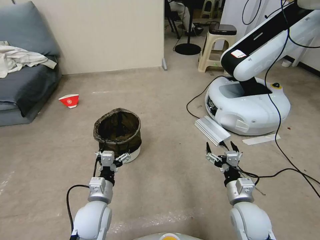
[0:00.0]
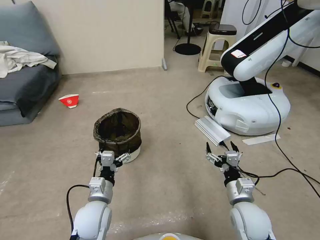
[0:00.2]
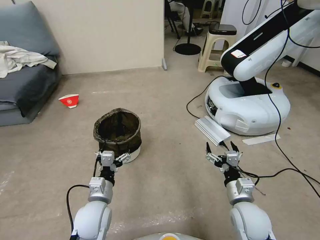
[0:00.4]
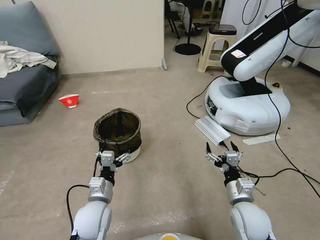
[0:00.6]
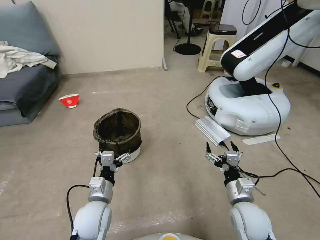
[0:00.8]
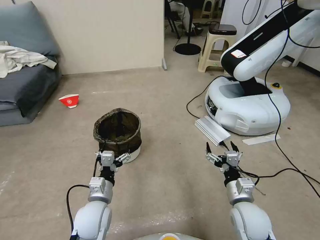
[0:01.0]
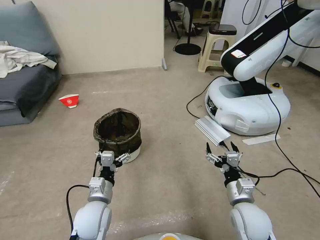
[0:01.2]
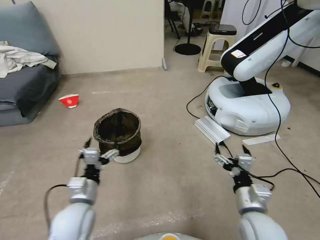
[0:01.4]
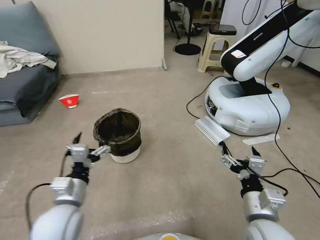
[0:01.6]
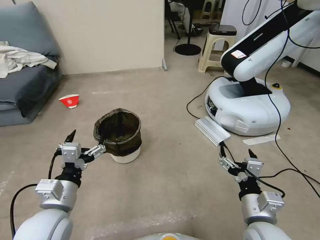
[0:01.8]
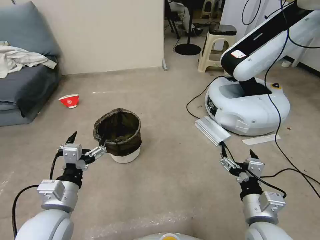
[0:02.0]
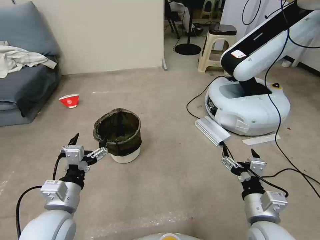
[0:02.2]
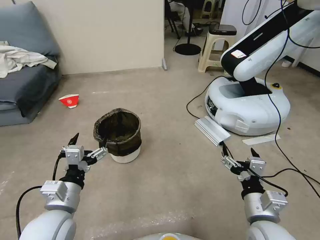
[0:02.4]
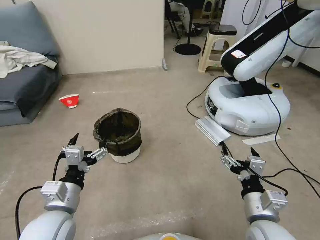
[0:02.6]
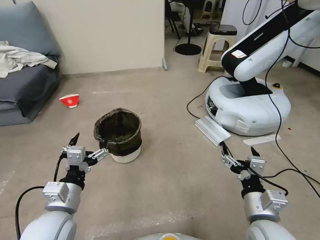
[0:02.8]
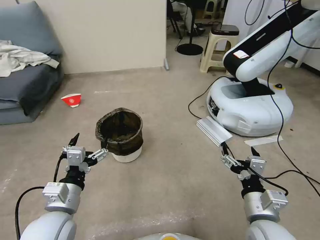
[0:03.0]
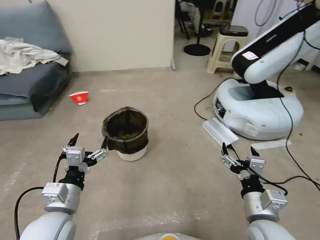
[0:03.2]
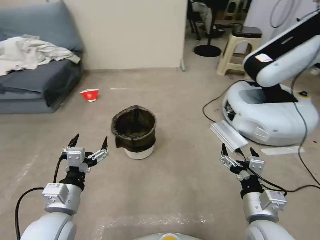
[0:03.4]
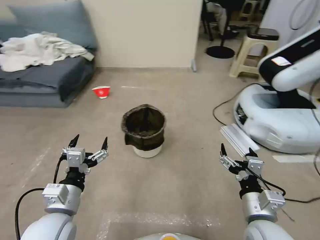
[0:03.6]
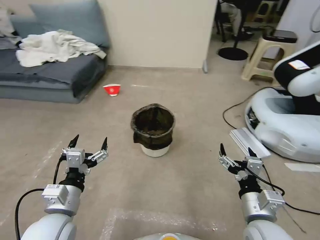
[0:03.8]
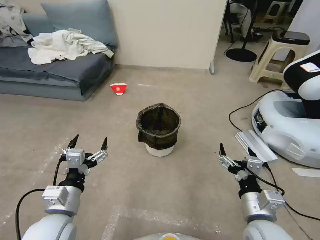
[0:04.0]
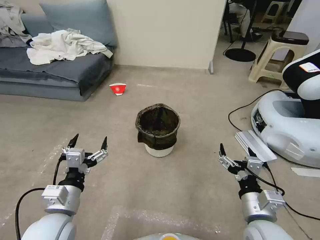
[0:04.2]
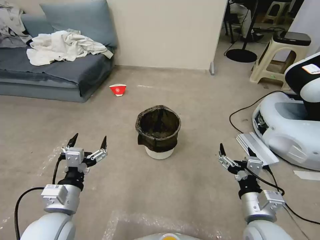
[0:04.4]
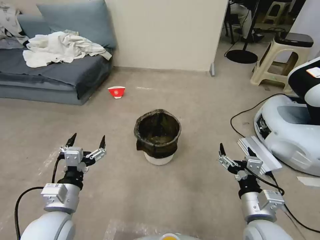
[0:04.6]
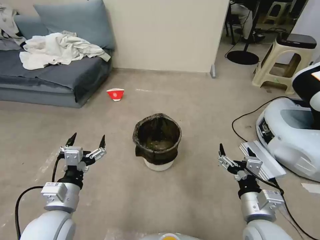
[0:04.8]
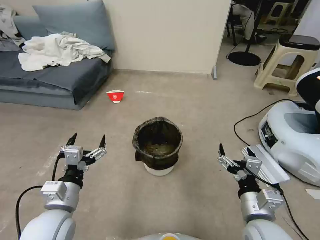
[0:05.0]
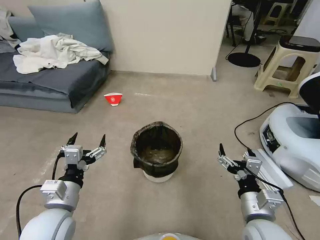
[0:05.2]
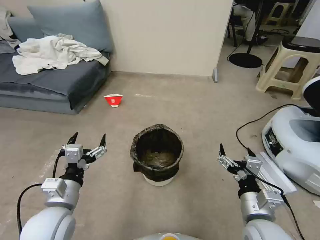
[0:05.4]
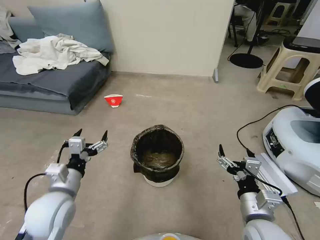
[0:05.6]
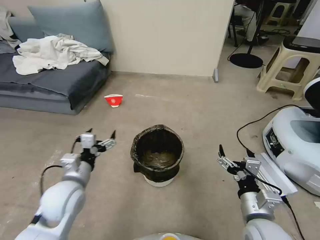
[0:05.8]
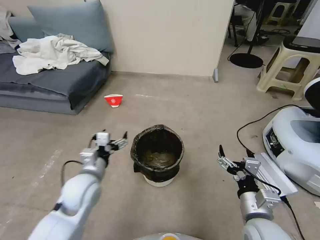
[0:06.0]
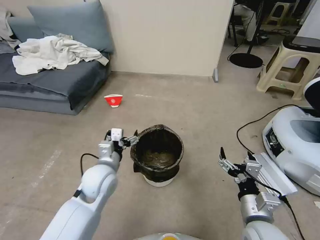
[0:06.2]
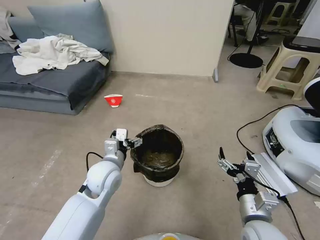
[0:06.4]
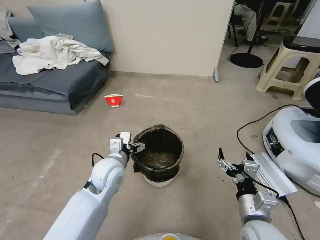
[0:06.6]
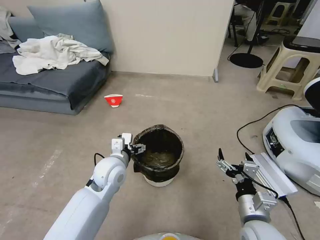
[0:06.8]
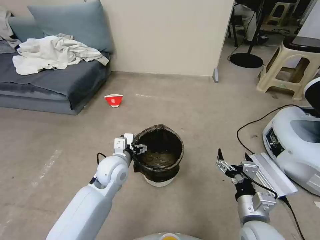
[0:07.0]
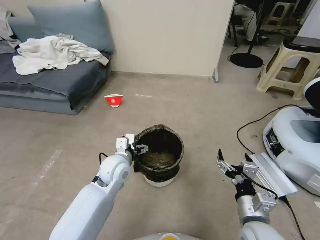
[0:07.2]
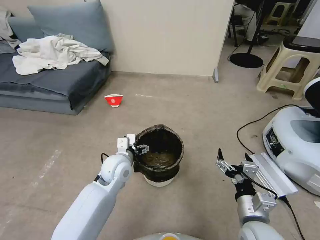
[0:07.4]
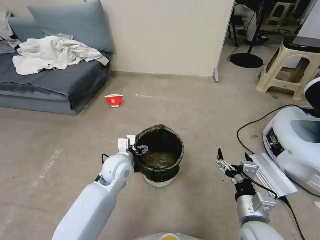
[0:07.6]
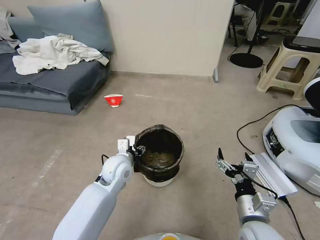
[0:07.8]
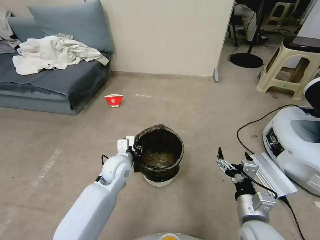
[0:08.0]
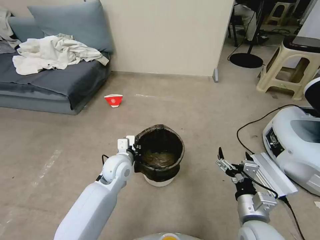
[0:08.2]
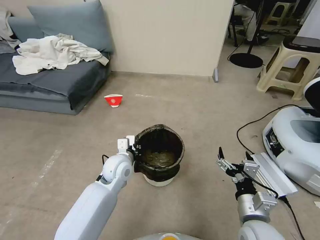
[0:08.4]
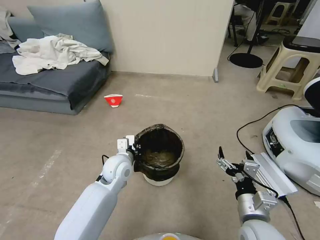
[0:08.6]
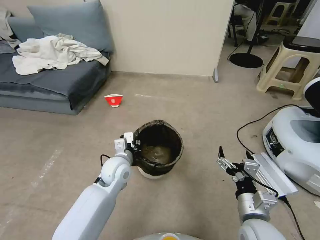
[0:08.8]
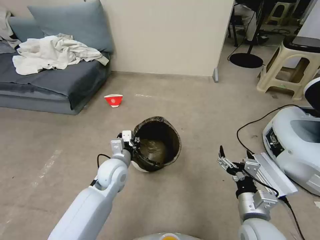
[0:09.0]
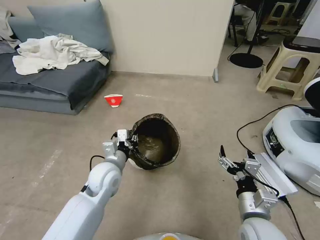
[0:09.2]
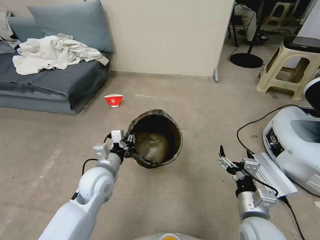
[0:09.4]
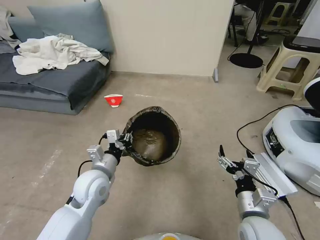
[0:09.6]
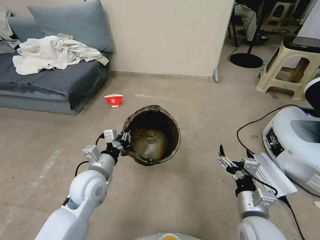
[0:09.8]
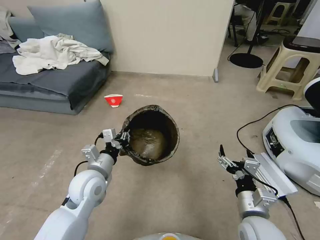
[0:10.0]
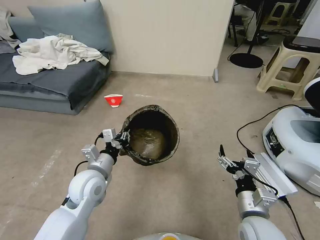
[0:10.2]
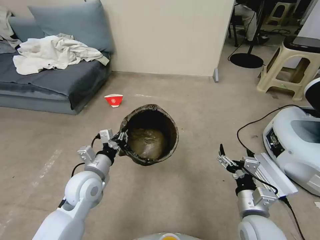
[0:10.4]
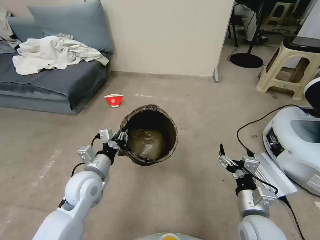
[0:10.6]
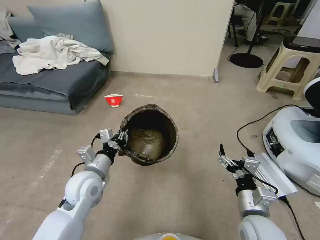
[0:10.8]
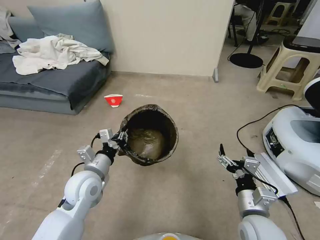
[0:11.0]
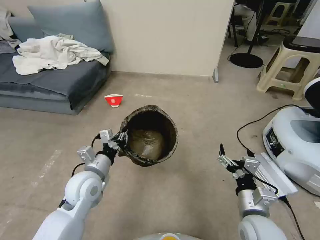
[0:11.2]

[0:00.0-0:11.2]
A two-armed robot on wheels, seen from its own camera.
Task of the whole recording: Pick up the trash can from the floor.
0:04.8 to 0:06.4: The left gripper shifts about 15 cm forward and to the right.
0:06.4 to 0:08.0: The left gripper changes place by some 5 cm, and closes up.
0:08.0 to 0:09.6: The left gripper travels backward and to the left by approximately 10 cm.
0:09.6 to 0:11.2: The grippers move only a little.

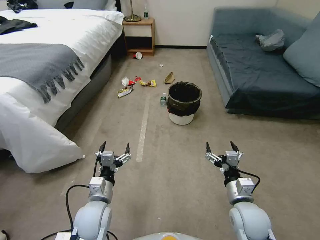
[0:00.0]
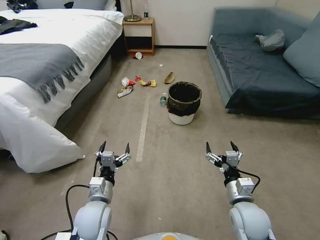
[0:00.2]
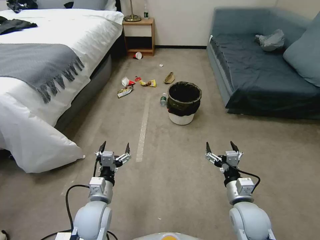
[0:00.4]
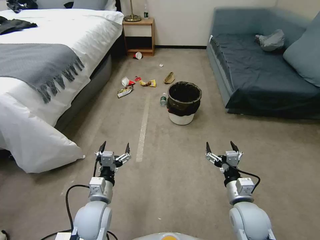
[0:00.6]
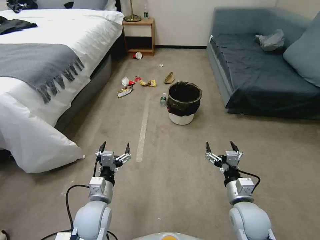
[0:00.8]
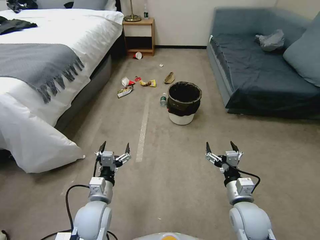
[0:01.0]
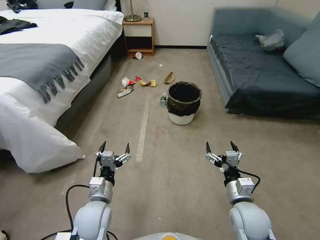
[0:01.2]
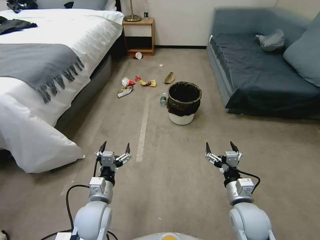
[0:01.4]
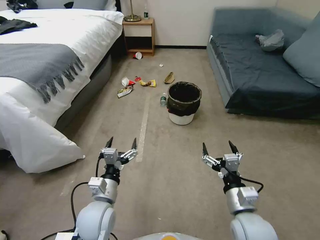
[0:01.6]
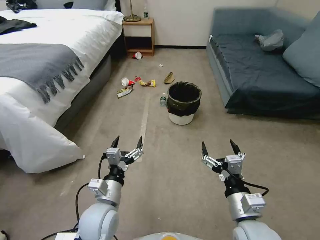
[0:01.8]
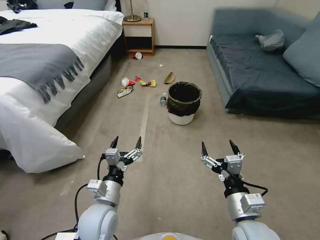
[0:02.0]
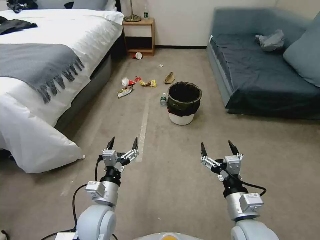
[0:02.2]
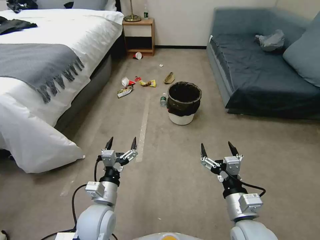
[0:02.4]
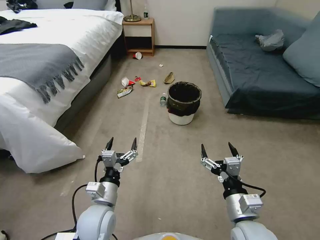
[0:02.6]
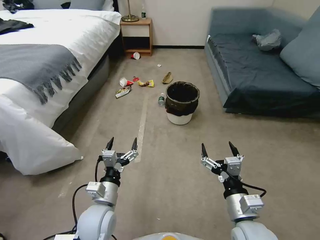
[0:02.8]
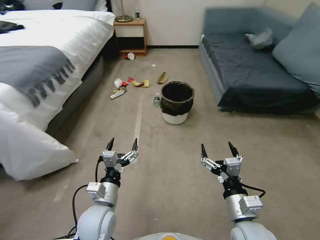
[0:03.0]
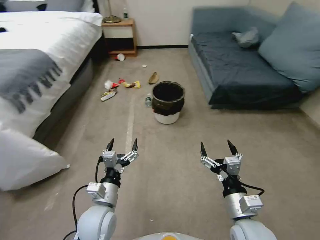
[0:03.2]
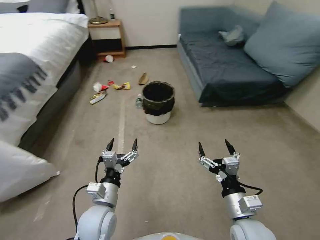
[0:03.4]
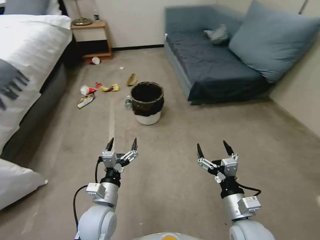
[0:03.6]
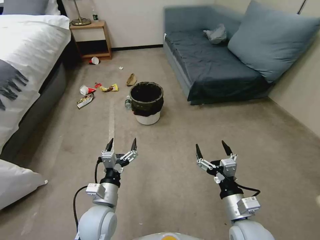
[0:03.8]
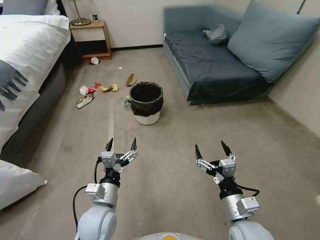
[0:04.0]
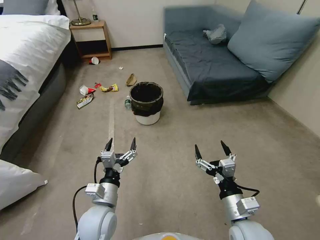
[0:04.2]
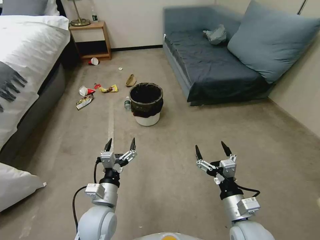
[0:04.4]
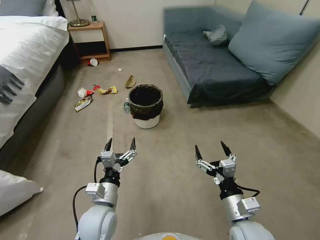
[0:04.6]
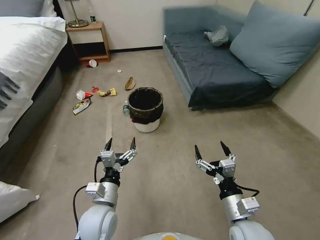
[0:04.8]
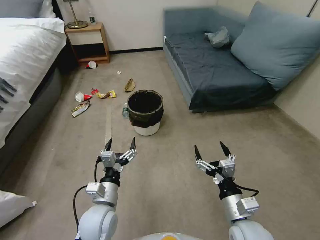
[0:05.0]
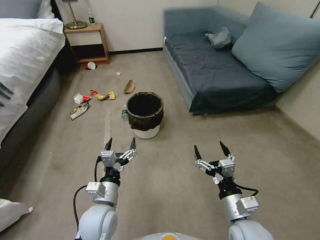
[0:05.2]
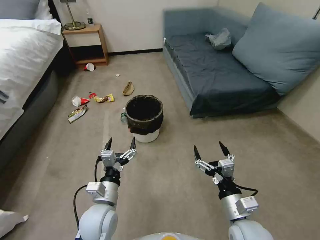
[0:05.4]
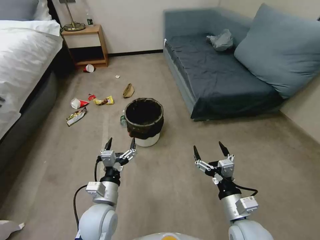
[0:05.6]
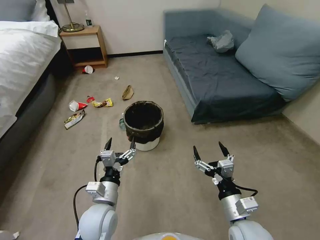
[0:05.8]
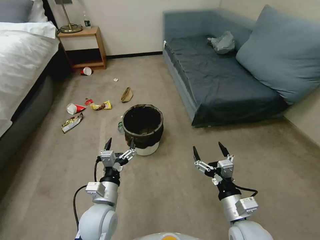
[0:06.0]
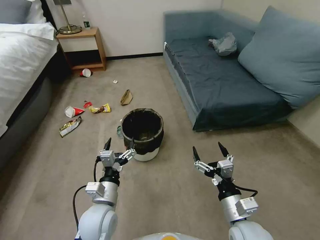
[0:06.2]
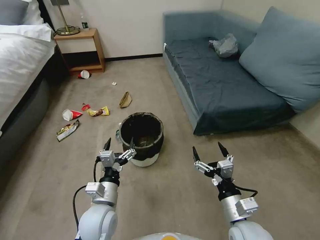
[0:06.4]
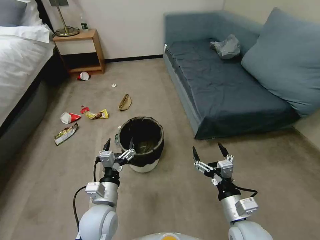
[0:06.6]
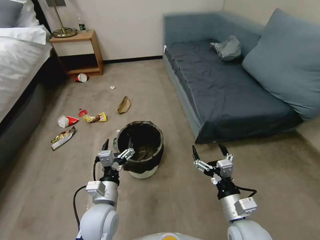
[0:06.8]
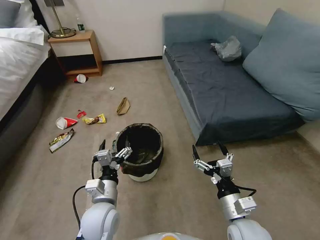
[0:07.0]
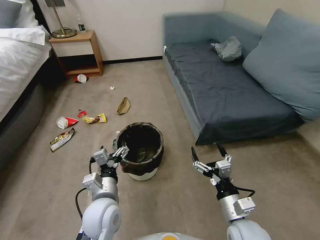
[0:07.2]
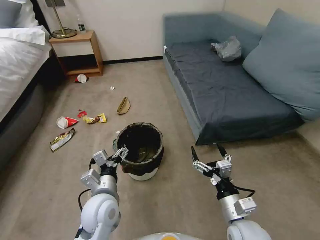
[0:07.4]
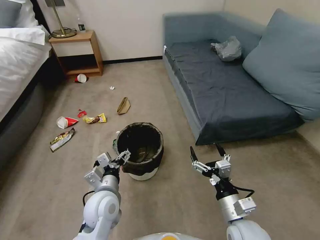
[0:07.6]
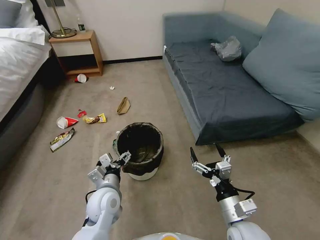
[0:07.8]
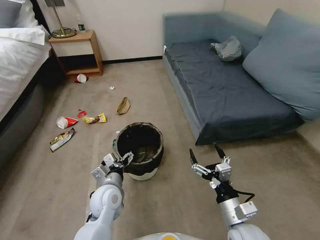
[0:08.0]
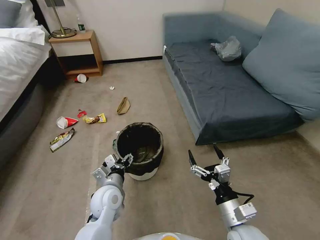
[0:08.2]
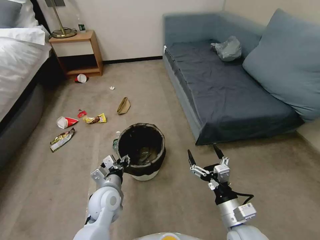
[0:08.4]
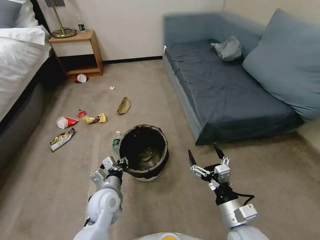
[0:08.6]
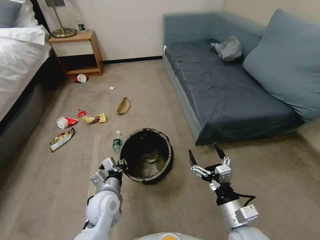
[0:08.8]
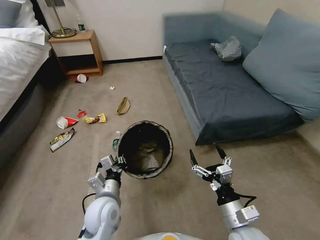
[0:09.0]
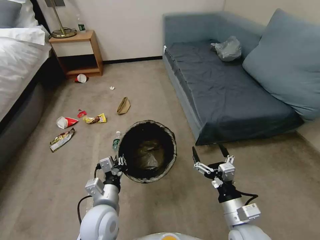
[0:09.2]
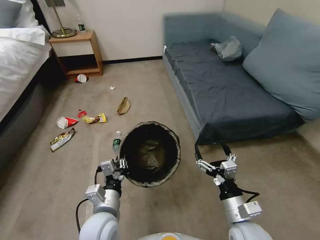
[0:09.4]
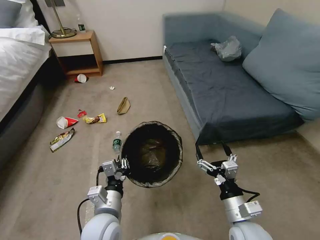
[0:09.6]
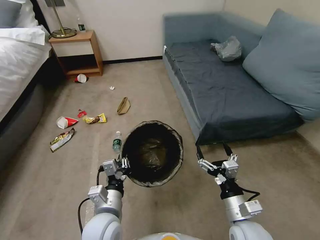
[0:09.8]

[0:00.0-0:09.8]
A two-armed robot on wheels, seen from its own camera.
Task of the whole recording: Pick up the trash can from the floor.
0:01.4 to 0:02.8: The right gripper is displaced backward by some 5 cm.
0:07.0 to 0:08.4: The left gripper moves forward, roughly 5 cm, and closes up.
0:08.4 to 0:09.8: The left gripper shifts approximately 10 cm backward, and closes.

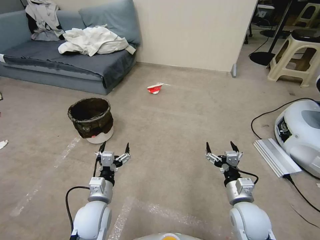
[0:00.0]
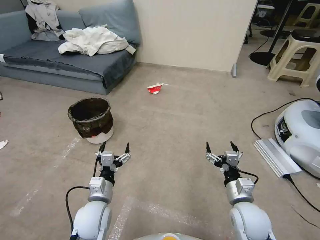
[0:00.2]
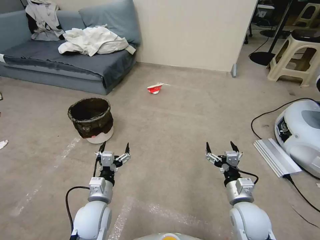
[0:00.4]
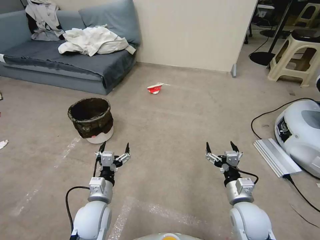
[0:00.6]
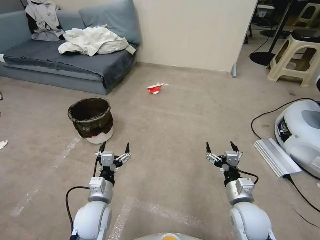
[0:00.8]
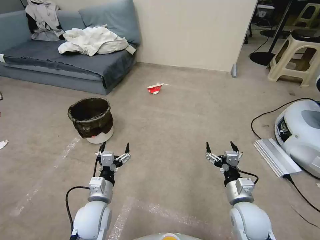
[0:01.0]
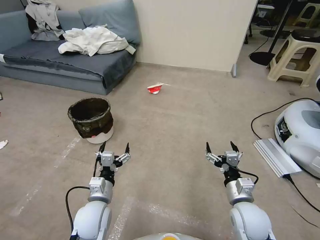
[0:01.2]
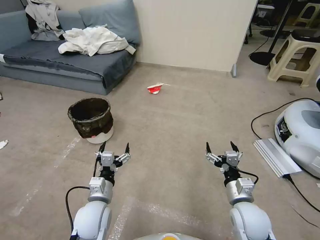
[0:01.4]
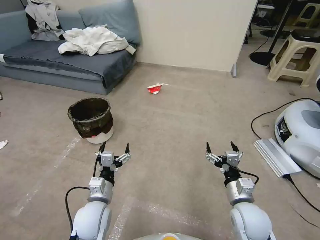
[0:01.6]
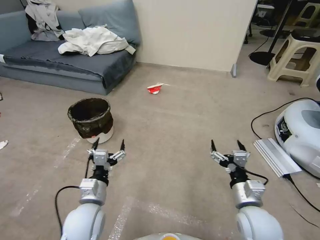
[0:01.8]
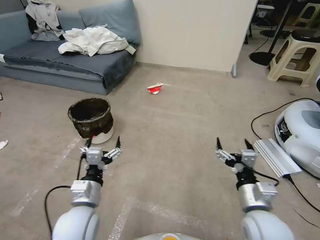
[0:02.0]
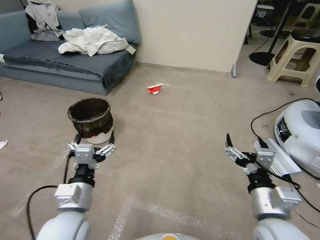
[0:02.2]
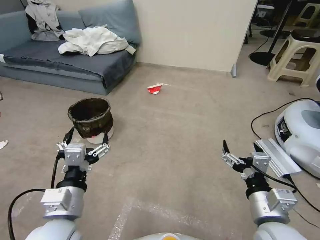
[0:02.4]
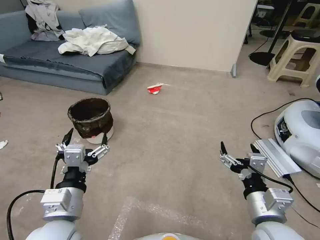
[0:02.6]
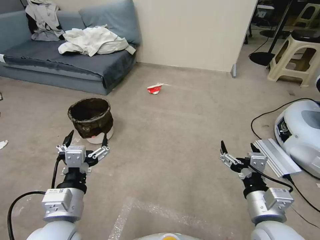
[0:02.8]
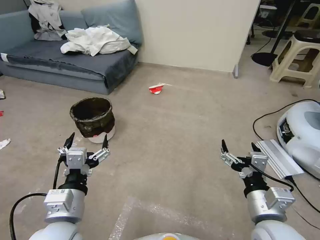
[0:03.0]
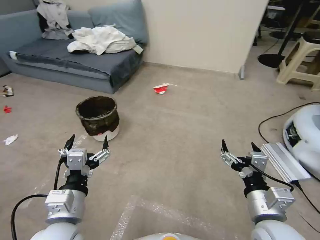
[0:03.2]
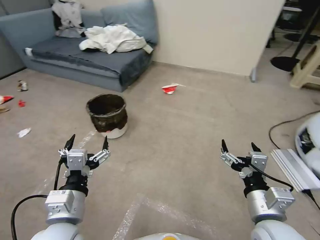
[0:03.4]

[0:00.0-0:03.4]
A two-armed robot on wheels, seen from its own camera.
Task of the whole recording: Pick up the trash can from the floor.
0:01.6 to 0:03.4: The grippers both shift upward and backward by about 15 cm.
